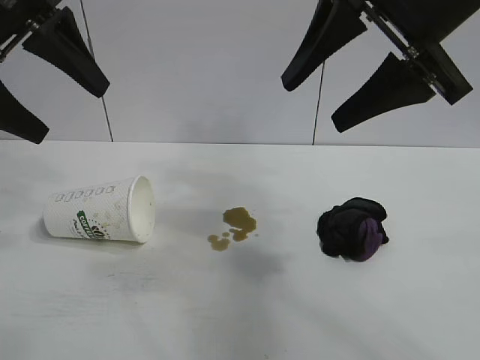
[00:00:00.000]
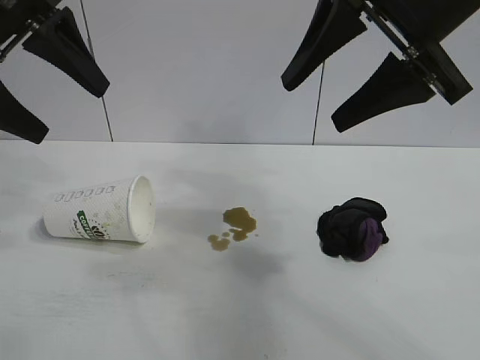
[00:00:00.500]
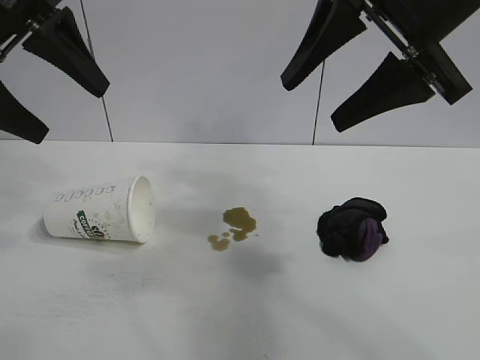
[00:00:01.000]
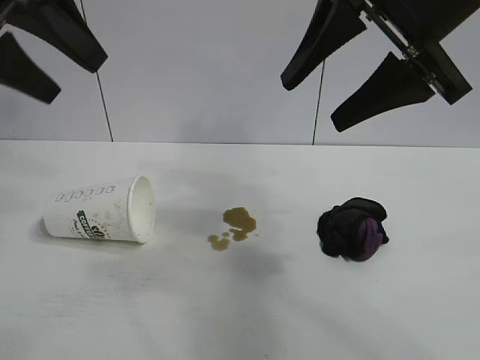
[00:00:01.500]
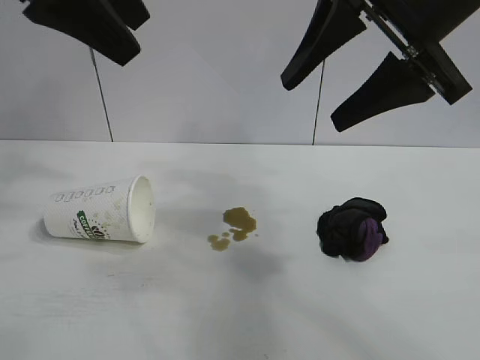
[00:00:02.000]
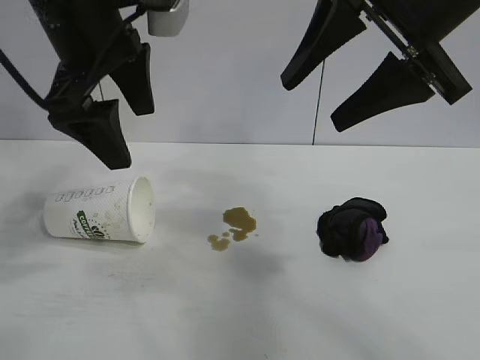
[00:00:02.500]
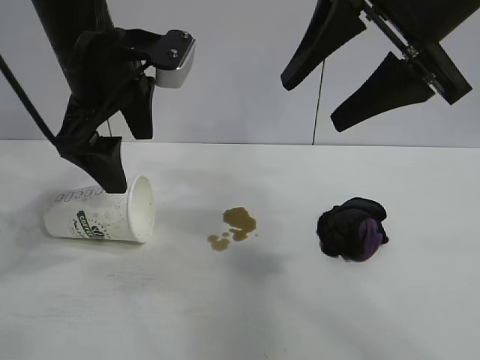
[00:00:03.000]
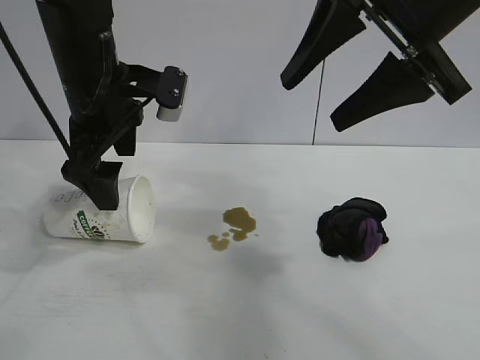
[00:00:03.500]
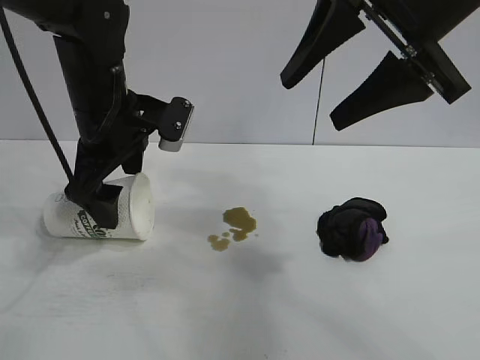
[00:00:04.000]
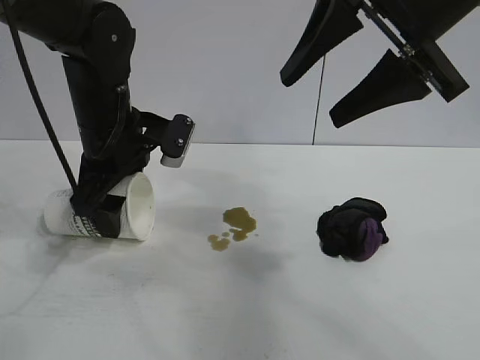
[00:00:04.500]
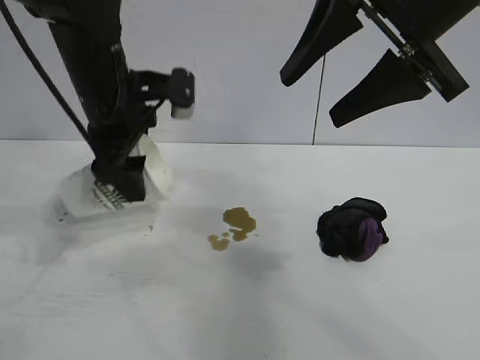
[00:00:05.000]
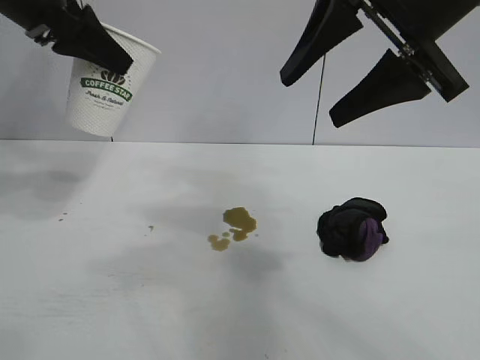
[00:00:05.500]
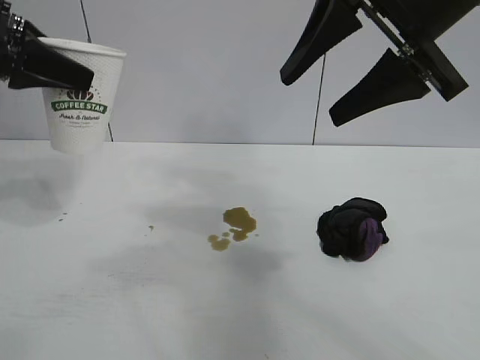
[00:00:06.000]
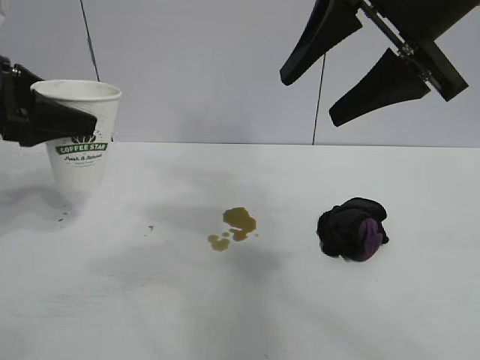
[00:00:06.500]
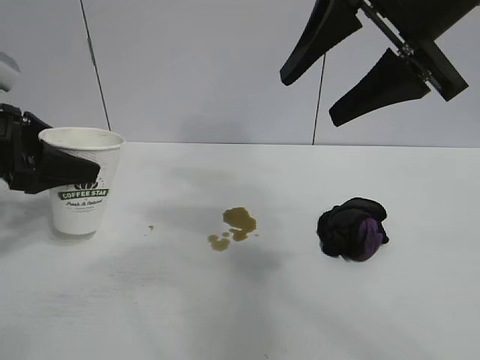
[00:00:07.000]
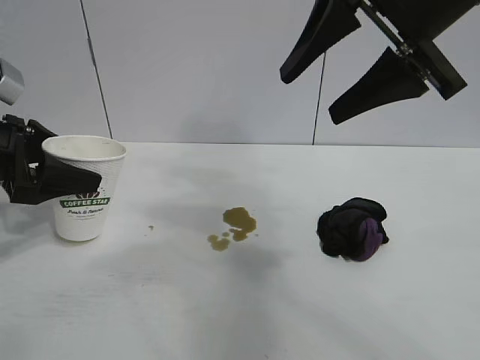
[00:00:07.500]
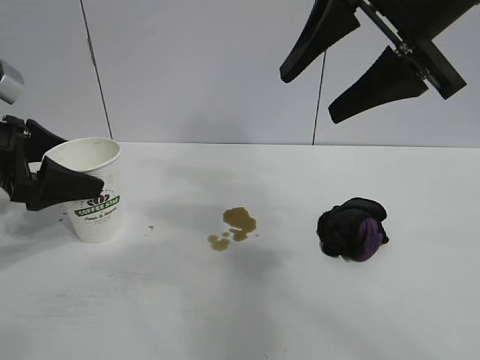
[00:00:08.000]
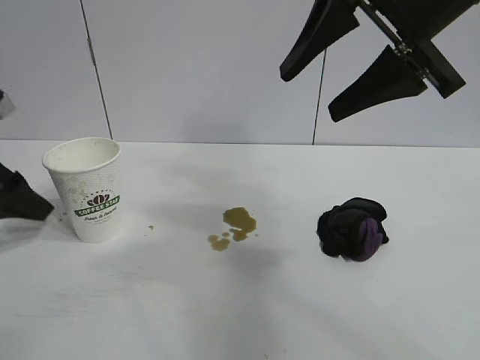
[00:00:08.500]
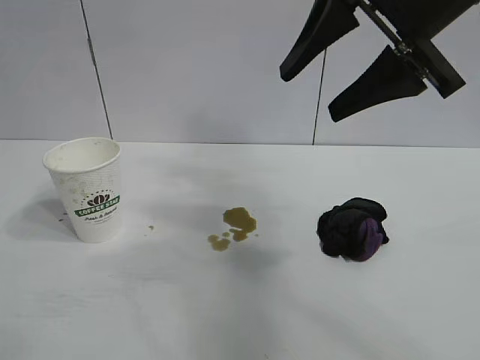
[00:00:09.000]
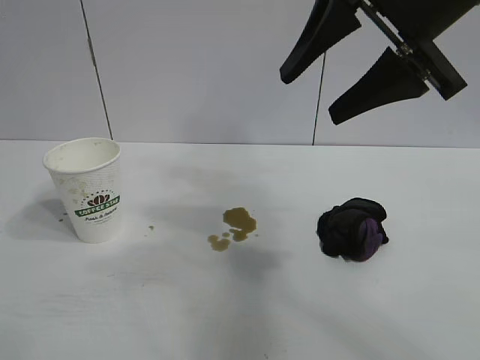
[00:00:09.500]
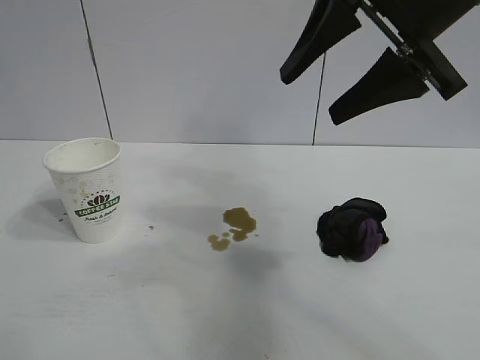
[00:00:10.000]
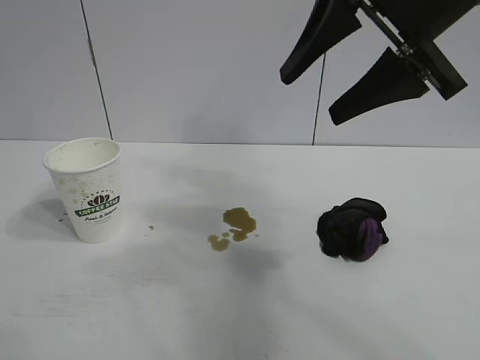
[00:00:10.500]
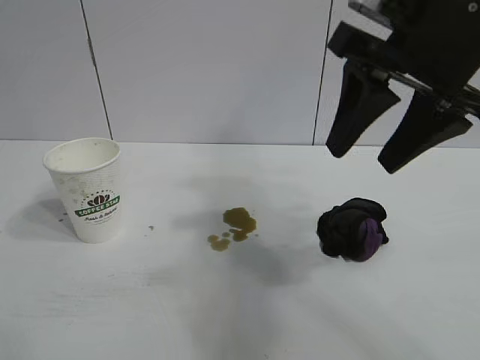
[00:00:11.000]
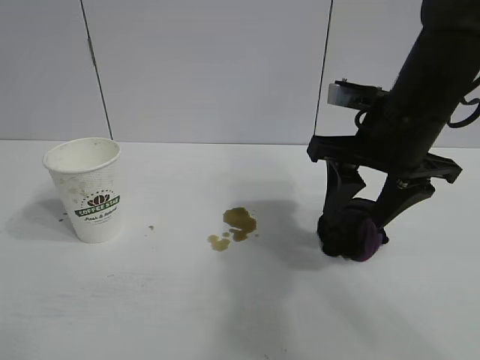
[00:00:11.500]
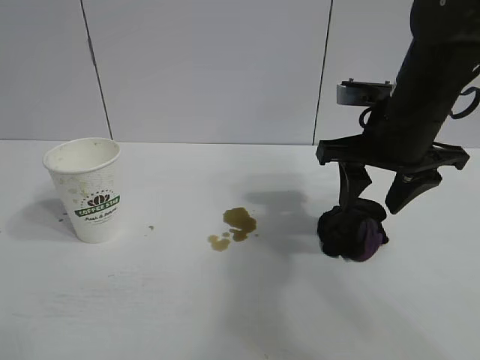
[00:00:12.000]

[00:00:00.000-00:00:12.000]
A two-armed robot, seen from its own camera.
Task of the whole recording: the left gripper pick up the fallen cup and place it upright, the right gripper grasp the black rag and wipe the stain on the table, the right gripper put the black rag back in its original position.
Step, 00:00:01.500 to 00:00:04.500: Grasp the paper cup with left gripper.
Step, 00:00:05.000 to 00:00:07.500: Stand the paper cup upright with left gripper.

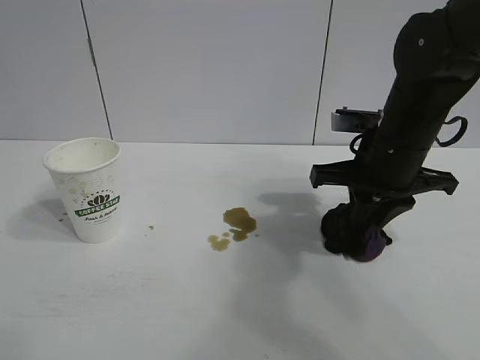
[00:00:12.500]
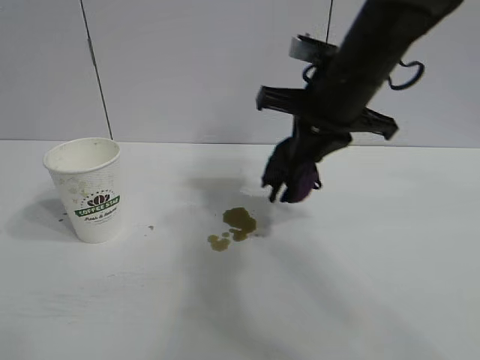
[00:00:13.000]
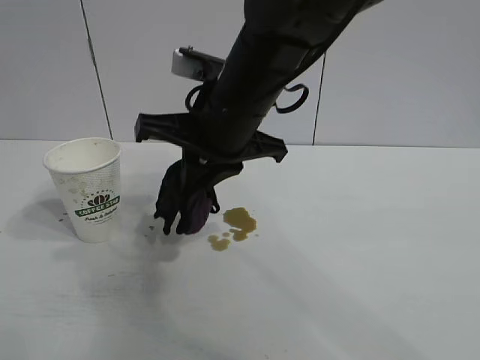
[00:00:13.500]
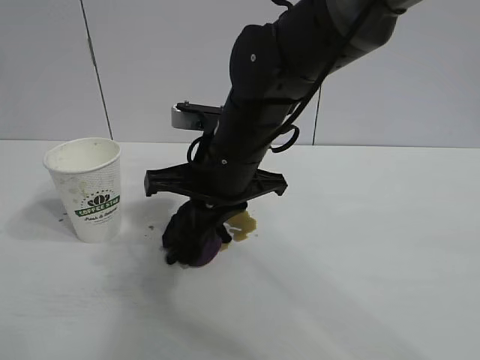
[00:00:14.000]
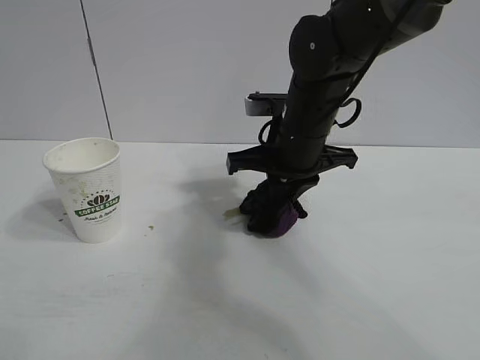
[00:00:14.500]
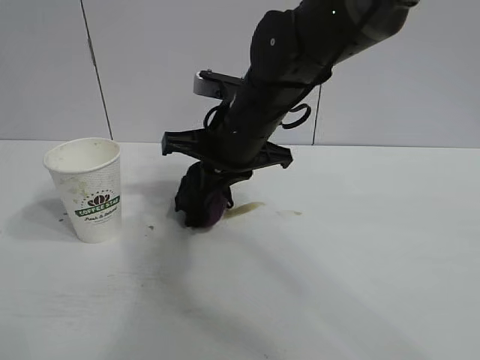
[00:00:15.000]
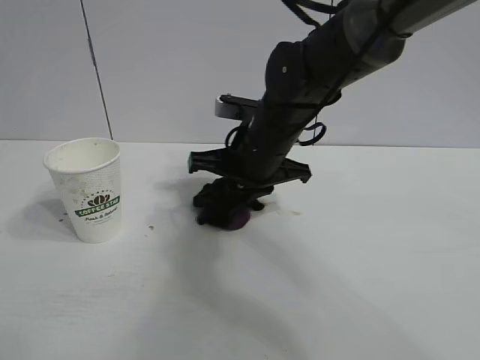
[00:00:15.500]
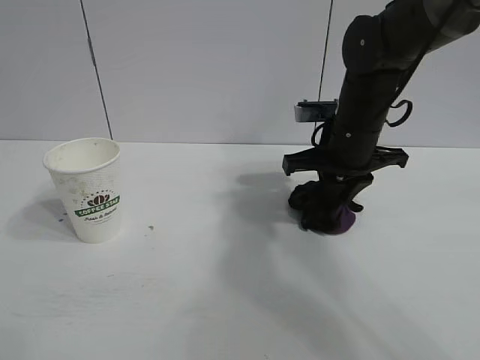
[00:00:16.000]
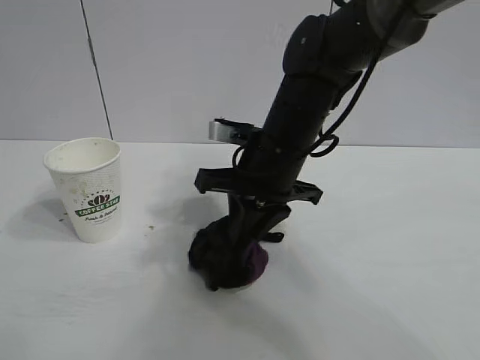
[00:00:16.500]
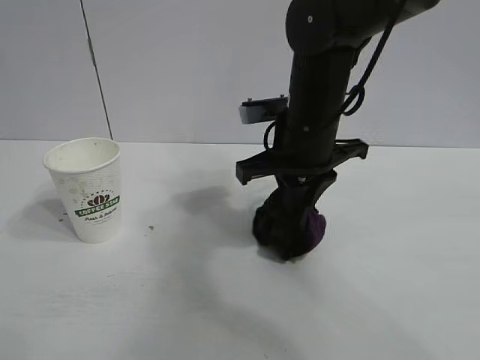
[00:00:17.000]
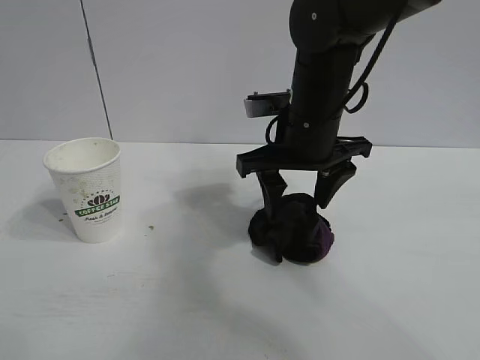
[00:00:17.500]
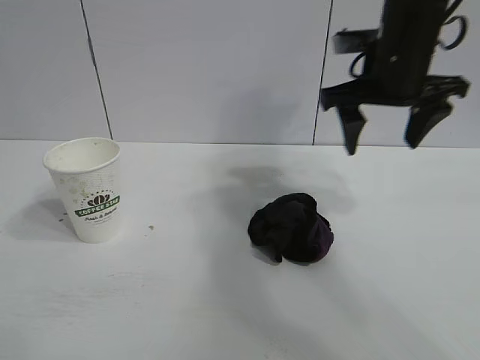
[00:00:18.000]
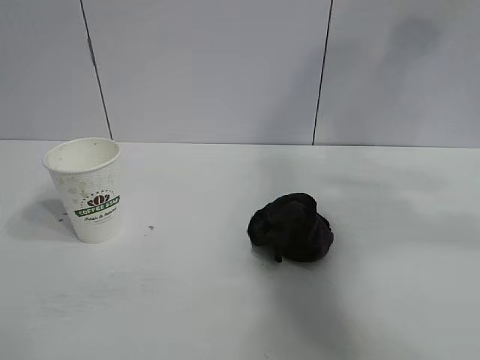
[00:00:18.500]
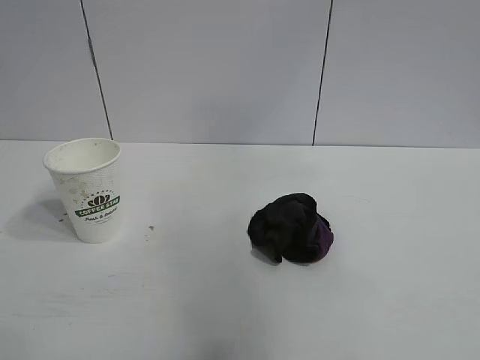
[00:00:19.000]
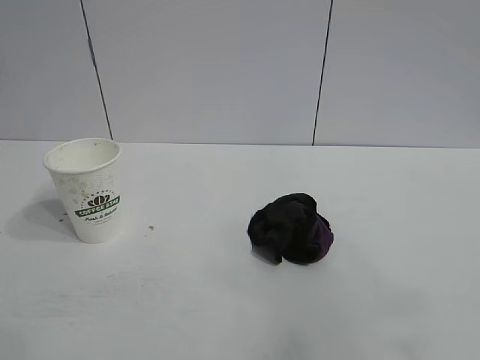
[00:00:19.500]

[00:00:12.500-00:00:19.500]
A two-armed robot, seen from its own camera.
Task of the whole recording: the left gripper pick up the fallen cup and place it upright, the right gripper grasp the black rag and wipe the stain on the table, the right gripper put the black rag back in its original position.
Step, 00:00:13.000 to 00:00:16.500: Wipe the stains off the table with the rag with right gripper.
Step, 00:00:17.000 to 00:00:17.500: Place the rag on the table with right gripper.
